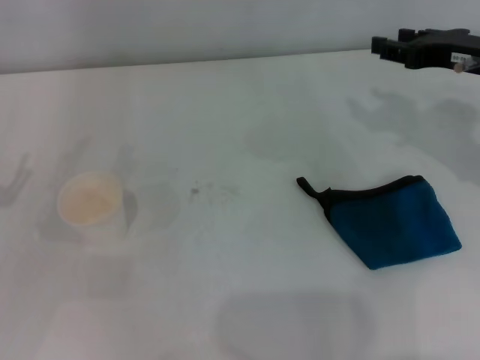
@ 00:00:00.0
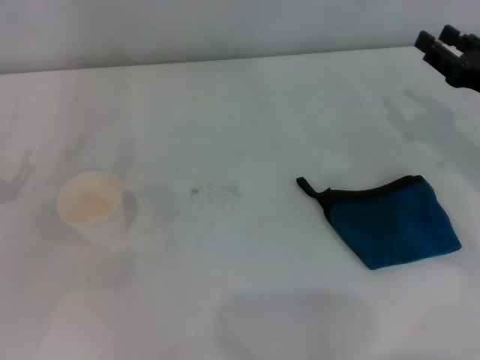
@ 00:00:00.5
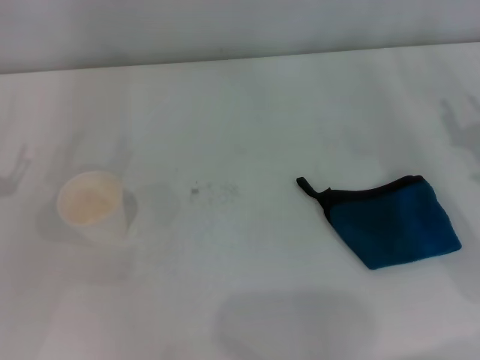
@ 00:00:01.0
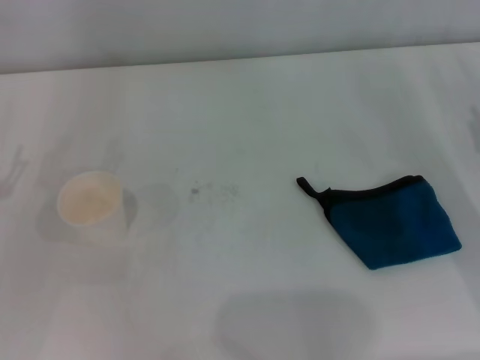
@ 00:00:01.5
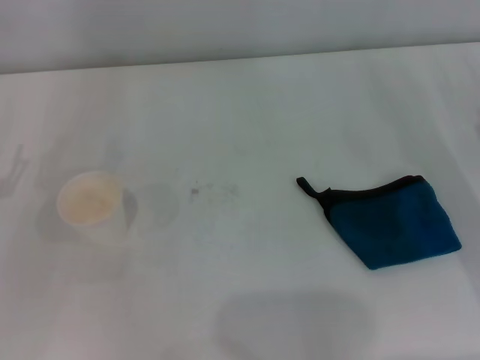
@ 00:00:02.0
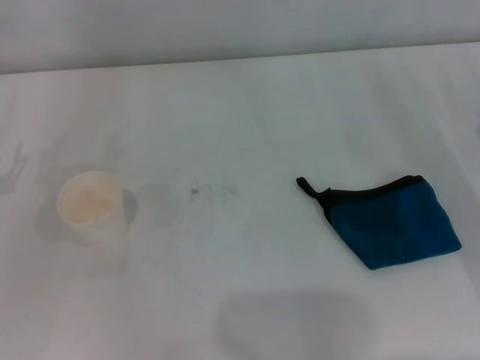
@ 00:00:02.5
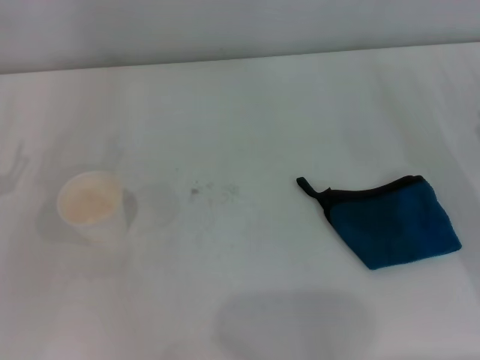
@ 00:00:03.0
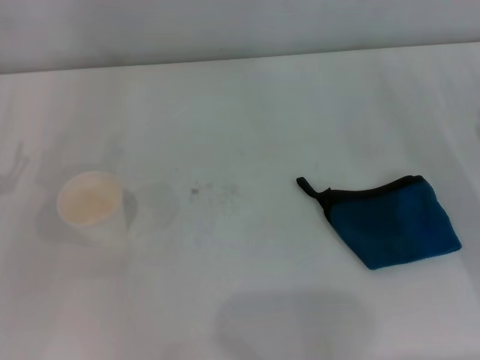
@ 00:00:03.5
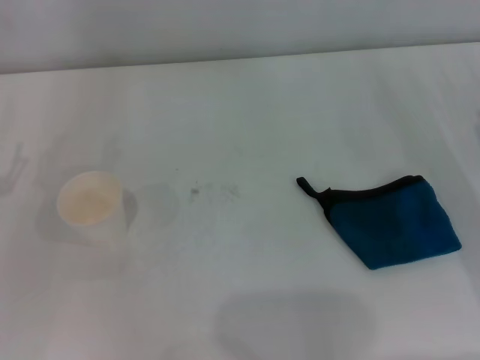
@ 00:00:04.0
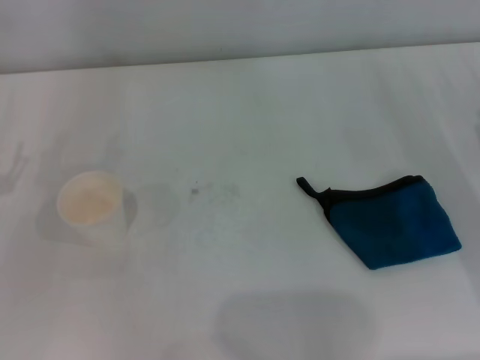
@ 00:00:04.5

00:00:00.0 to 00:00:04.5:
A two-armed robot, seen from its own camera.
00:00:00.0 to 00:00:02.0: The right gripper heads downward, backward and to the right, covering some 15 cm.
00:00:02.0 to 00:00:04.5: Neither gripper changes place.
